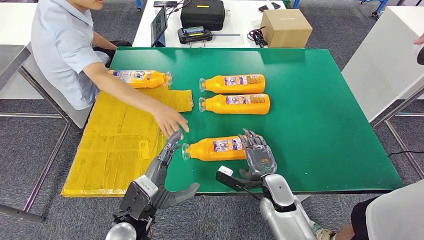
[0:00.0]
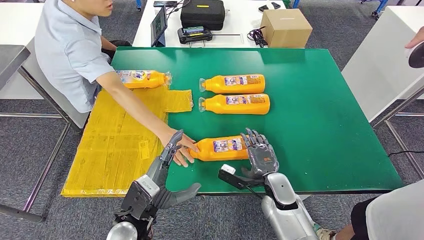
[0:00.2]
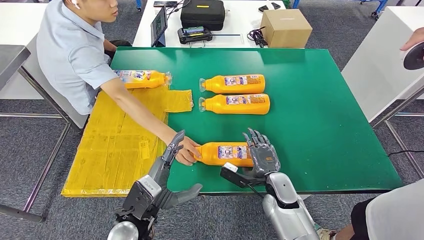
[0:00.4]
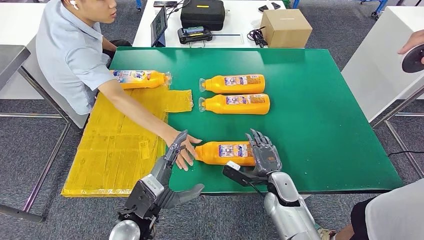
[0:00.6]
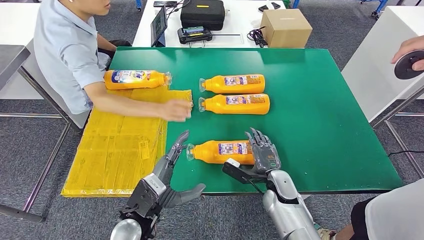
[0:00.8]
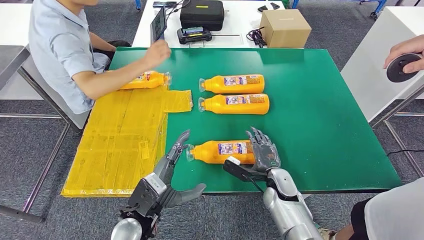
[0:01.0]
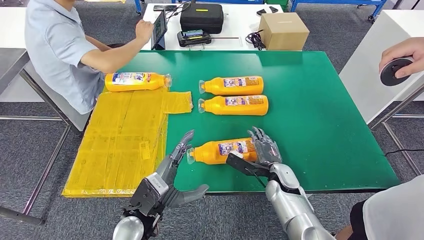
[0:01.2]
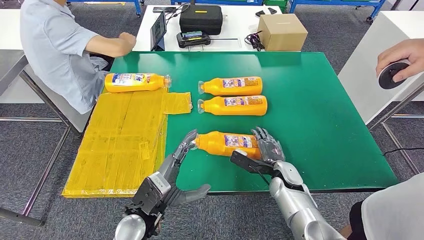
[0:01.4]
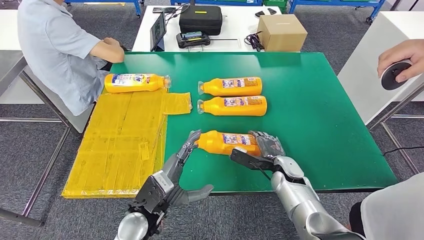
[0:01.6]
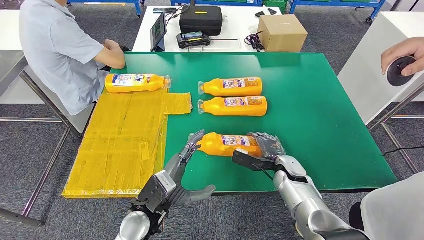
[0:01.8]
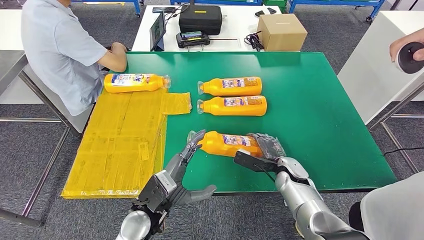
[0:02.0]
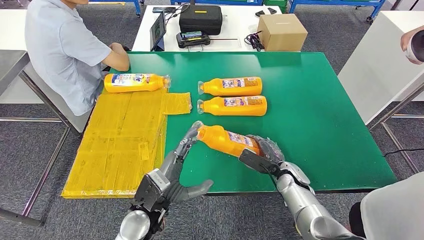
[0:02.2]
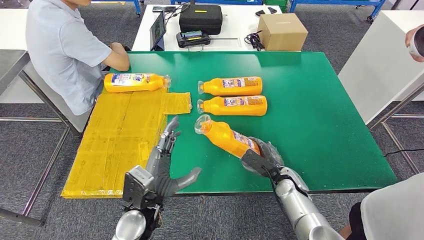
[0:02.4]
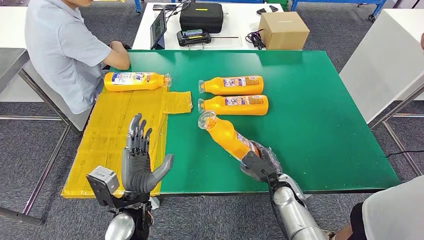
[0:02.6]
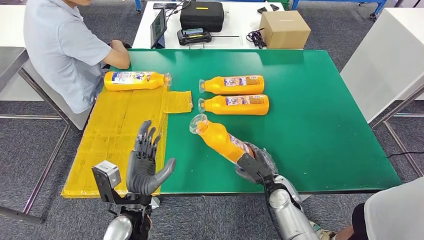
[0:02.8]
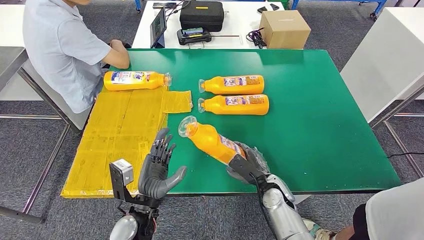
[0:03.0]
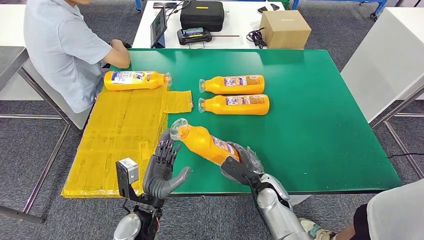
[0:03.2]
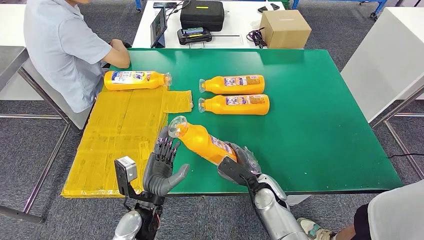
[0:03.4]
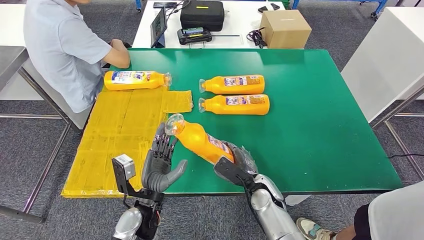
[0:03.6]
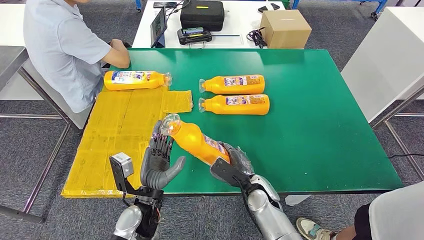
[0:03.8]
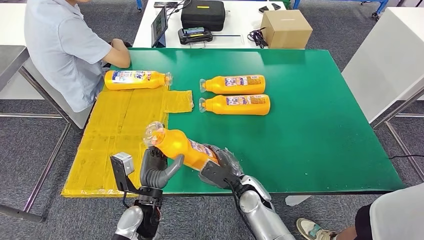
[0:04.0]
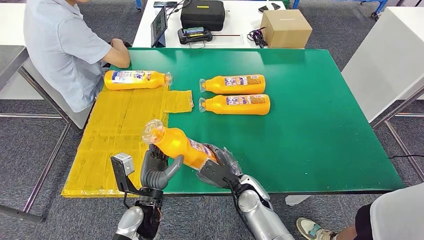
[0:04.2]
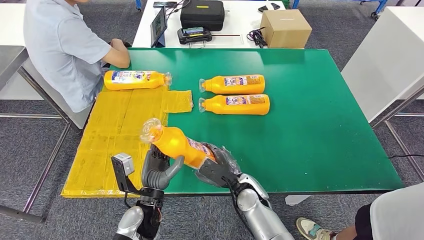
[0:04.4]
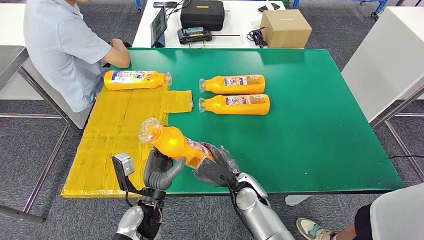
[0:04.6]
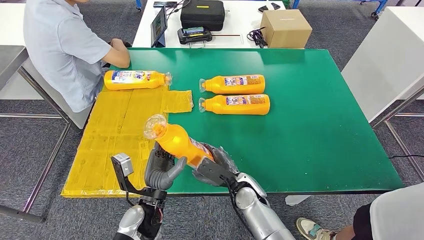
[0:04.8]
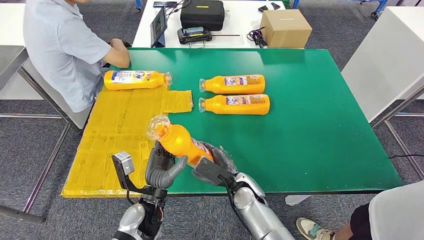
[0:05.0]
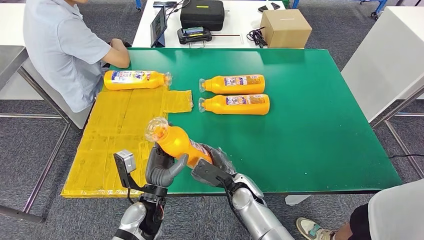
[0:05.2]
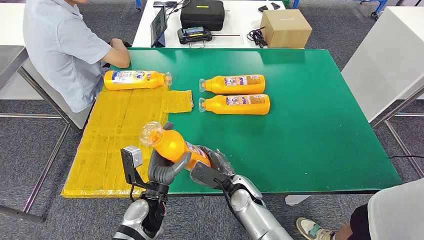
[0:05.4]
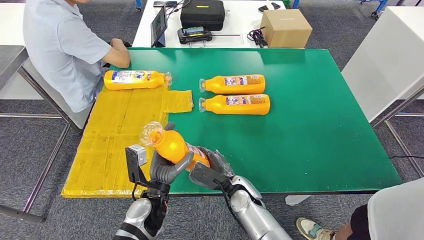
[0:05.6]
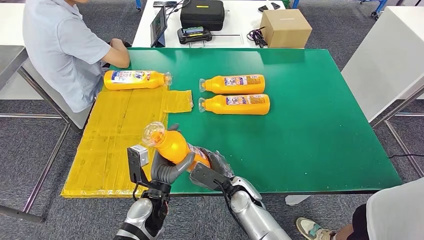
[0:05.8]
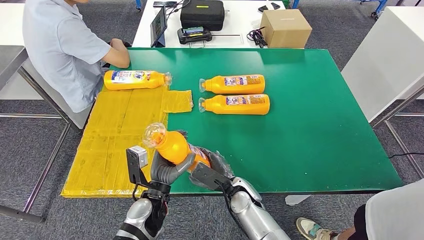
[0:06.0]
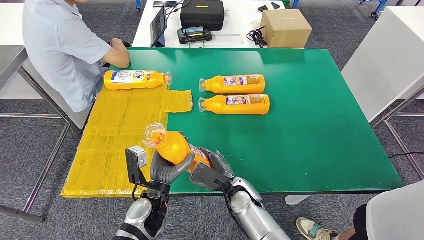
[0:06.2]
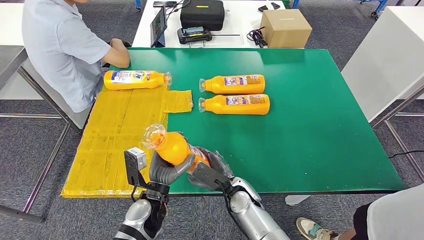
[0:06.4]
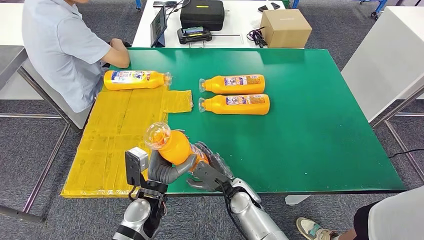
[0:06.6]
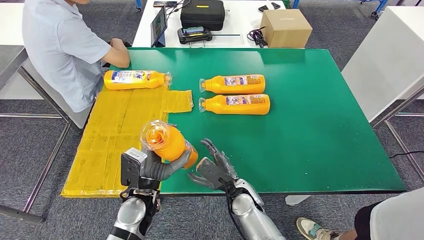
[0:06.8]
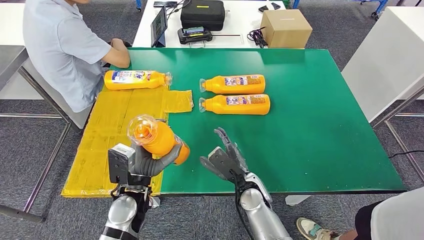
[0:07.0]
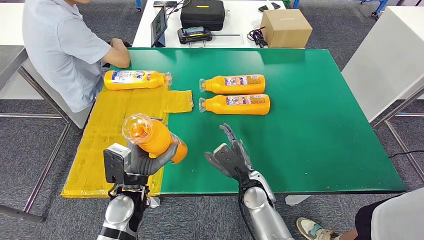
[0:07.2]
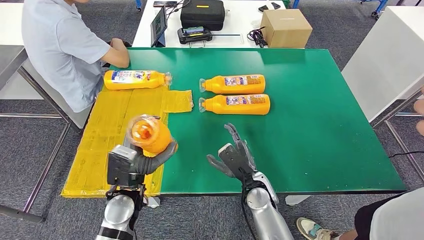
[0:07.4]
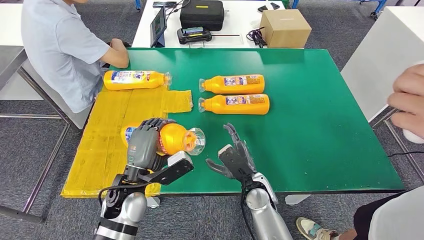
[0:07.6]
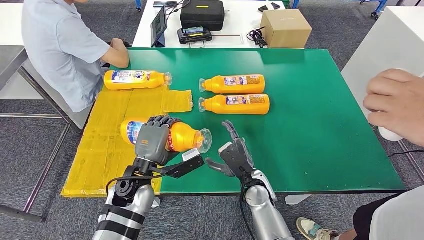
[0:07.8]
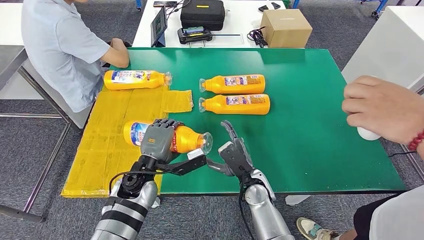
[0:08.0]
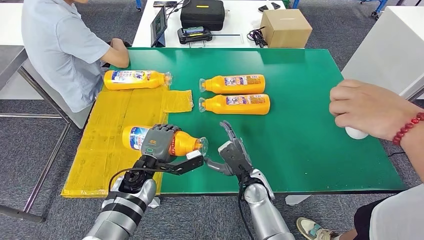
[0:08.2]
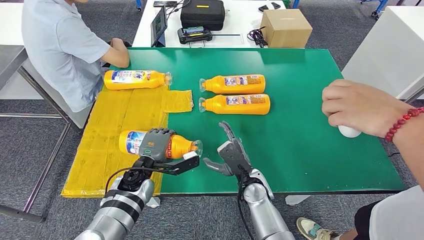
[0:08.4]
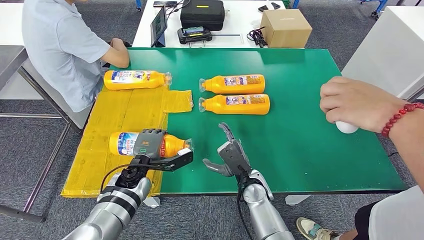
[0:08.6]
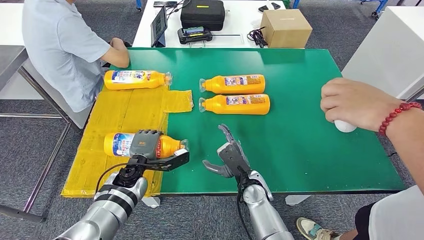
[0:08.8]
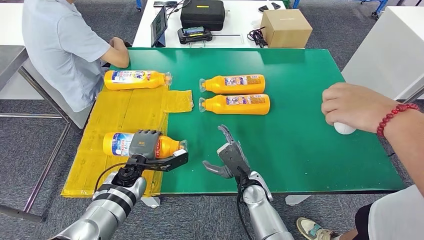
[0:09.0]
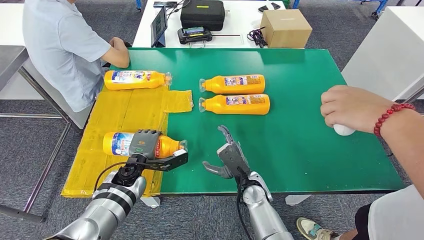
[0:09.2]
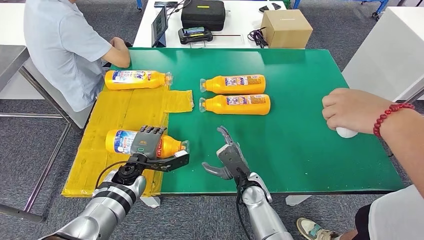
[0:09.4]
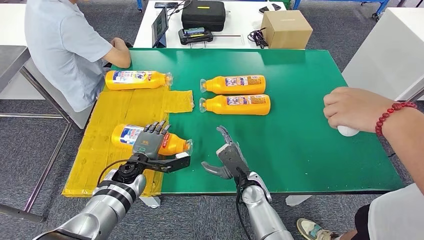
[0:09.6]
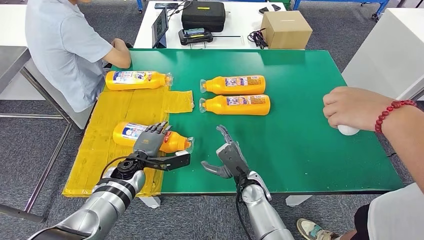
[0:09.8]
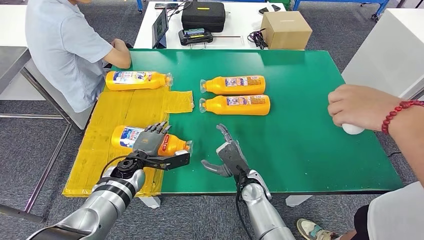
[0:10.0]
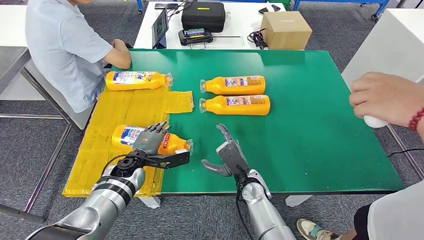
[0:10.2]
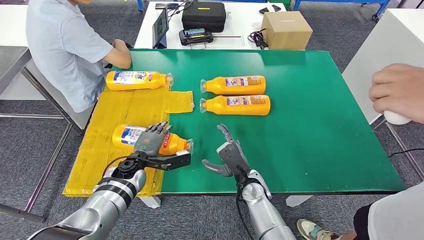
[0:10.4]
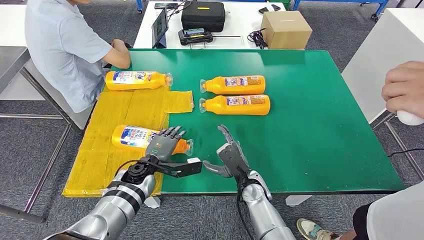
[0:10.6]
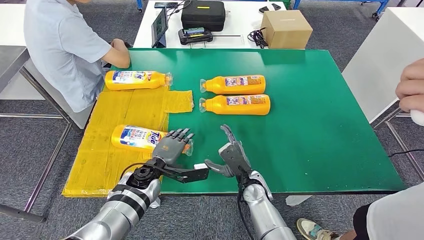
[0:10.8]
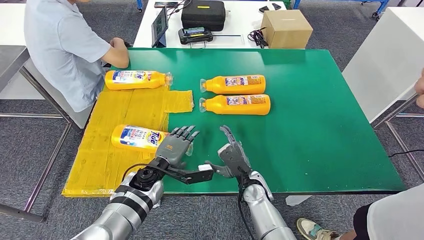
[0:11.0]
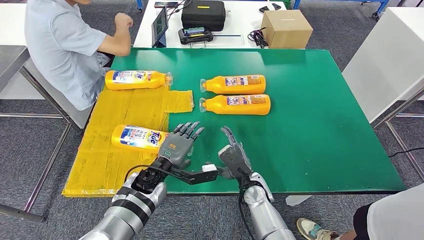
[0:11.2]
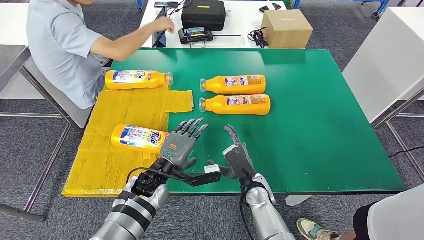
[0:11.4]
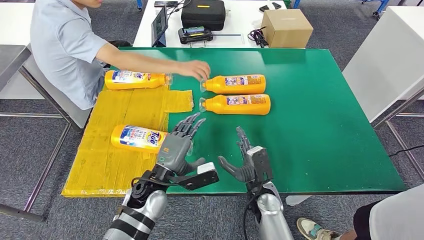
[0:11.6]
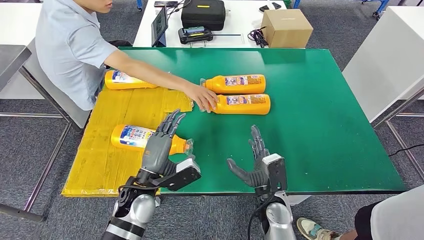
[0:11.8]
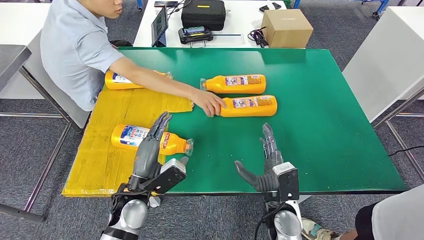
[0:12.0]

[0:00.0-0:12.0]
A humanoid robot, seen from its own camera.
Step, 0:00.0 to 0:03.6: Pick up the fast-moving consumer goods bottle from the table.
Step, 0:03.8 to 0:09.2: Flip the fast-moving consumer goods bottle to the front side.
0:03.0 to 0:04.4: The right hand heads to the left, covering roughly 10 cm.
0:04.4 to 0:06.0: There are only small adjustments of the hands.
0:06.0 to 0:07.6: The right hand ends up approximately 5 cm from where it was. Meanwhile the left hand travels upward and to the left by approximately 10 cm.
0:07.6 to 0:09.0: The left hand moves downward and forward, approximately 10 cm.
0:09.0 to 0:10.4: The hands stay close to where they were, moving slightly.

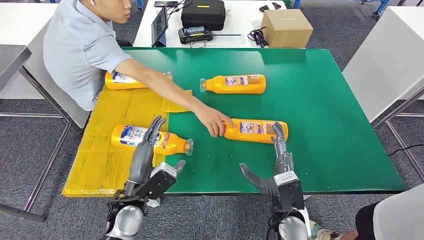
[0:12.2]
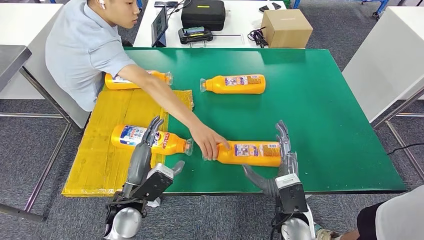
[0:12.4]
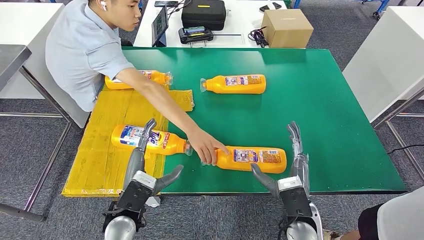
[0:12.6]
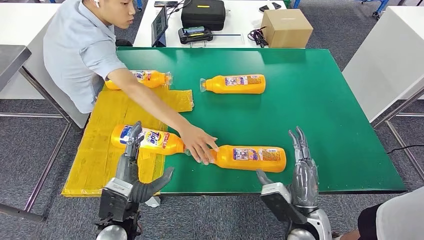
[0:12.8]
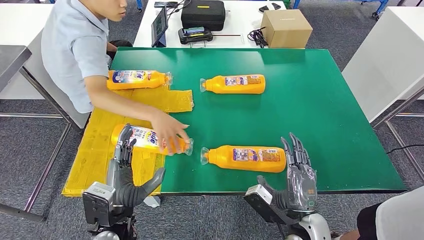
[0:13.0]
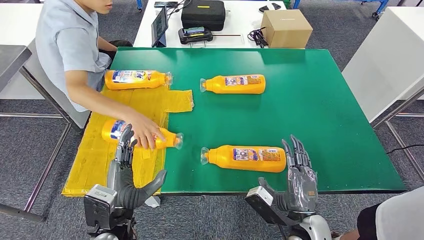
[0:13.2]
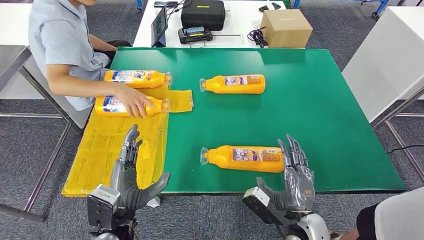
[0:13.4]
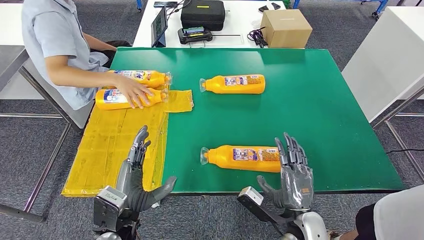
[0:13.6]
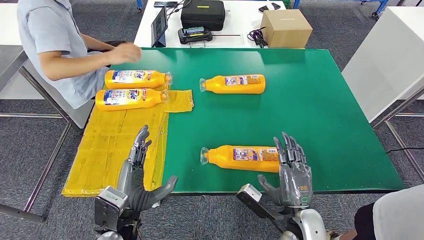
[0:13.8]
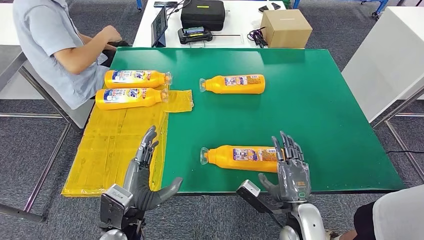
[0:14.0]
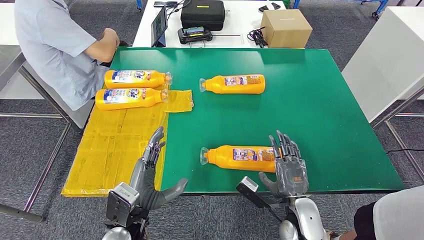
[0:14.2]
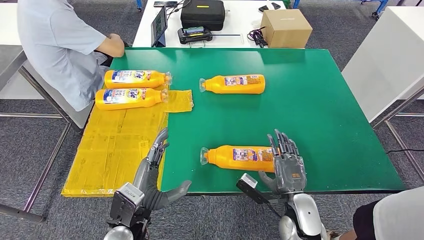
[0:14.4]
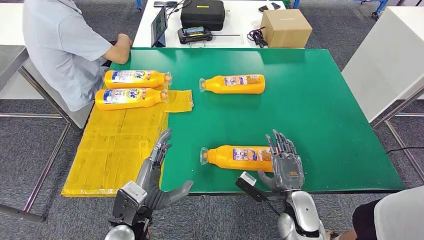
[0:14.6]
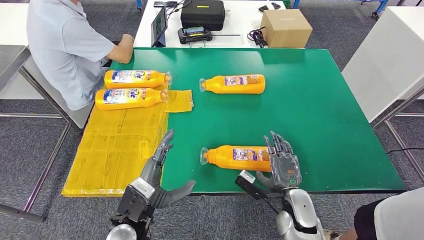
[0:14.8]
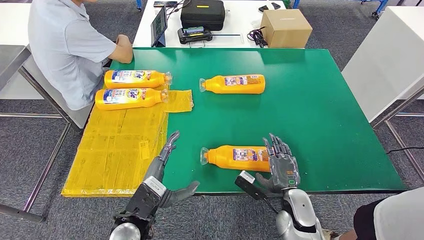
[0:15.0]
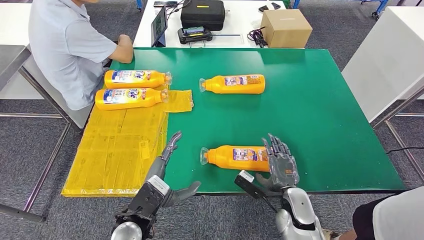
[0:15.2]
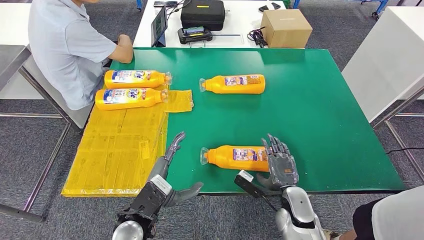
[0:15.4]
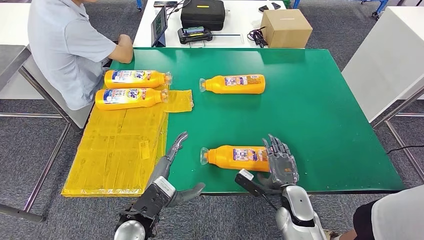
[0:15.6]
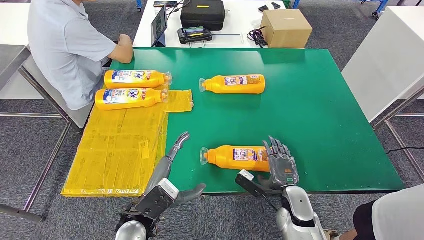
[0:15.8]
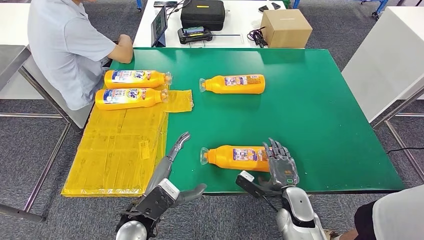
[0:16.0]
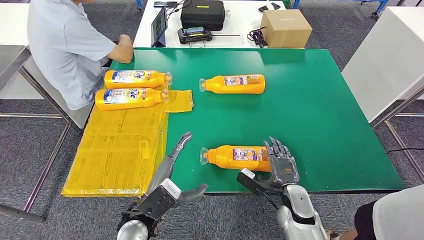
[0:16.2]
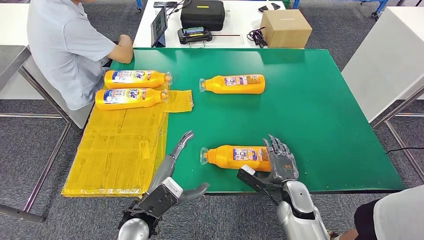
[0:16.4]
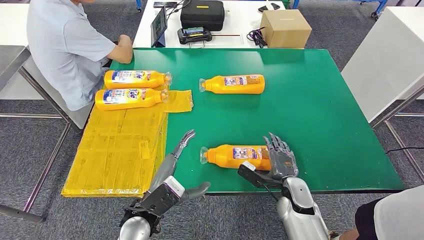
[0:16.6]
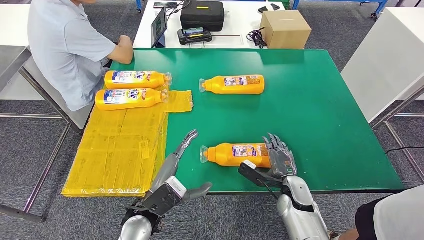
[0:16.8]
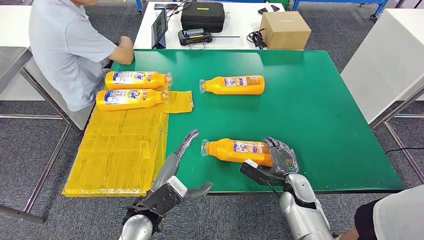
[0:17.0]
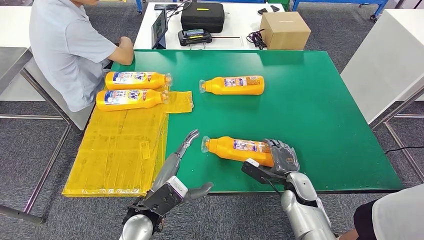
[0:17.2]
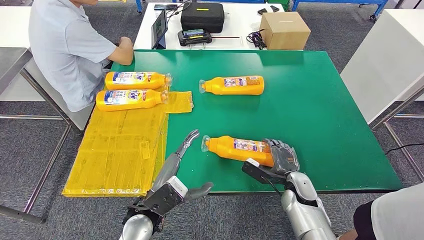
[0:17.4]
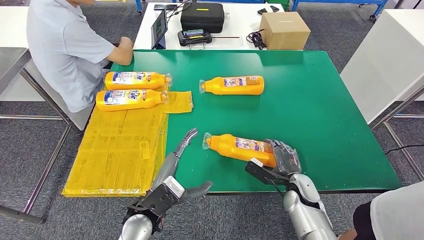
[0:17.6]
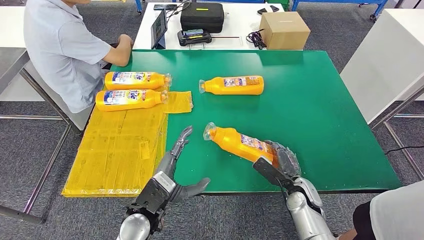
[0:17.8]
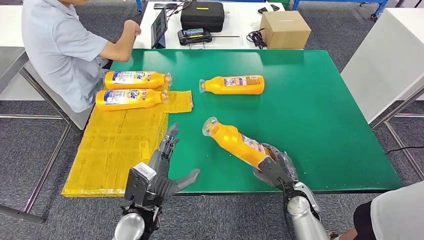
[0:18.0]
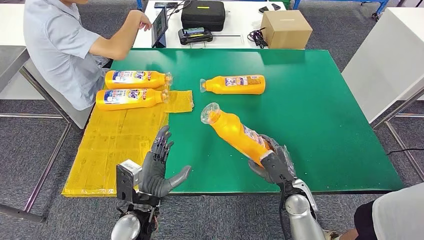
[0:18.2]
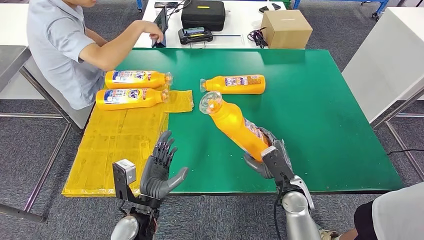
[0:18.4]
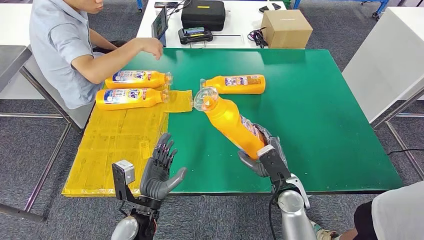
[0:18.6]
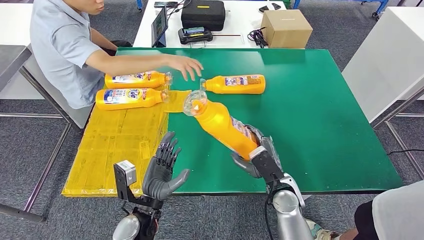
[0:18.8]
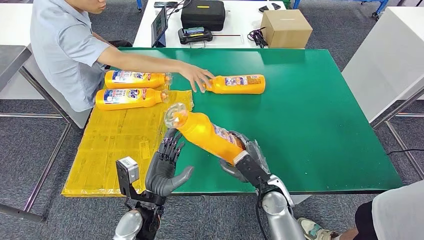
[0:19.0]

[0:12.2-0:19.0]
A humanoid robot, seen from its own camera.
Step, 0:12.2 to 0:18.6: Pick up the fast-moving consumer goods bottle from the table.
0:13.6 to 0:15.0: The right hand moves forward and downward, approximately 10 cm.
0:15.0 to 0:16.2: The hands make only small movements.
0:16.2 to 0:17.6: The right hand changes place by roughly 5 cm.
